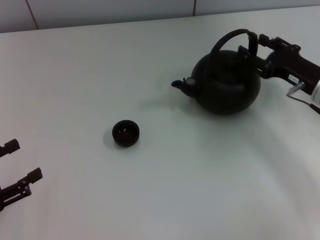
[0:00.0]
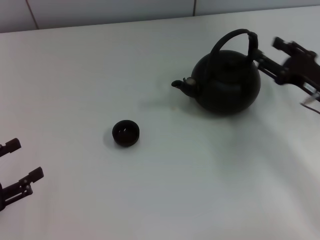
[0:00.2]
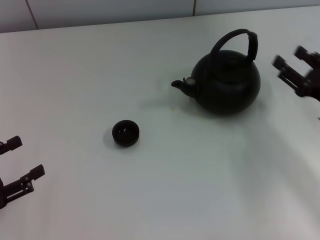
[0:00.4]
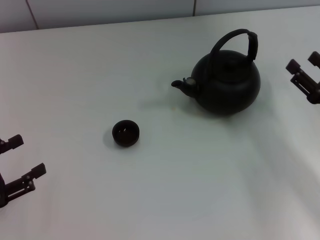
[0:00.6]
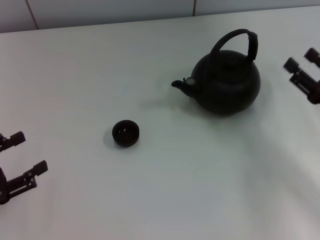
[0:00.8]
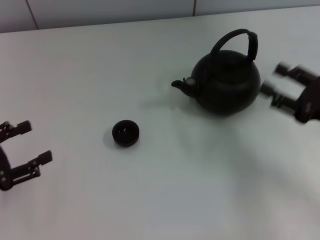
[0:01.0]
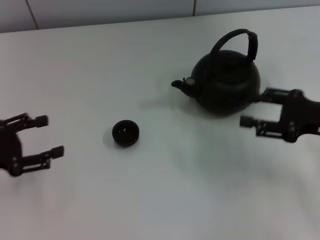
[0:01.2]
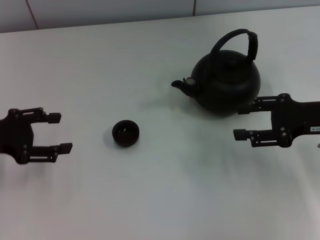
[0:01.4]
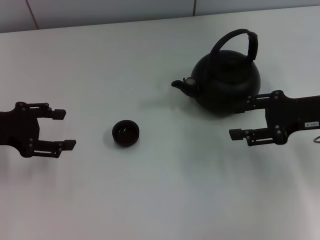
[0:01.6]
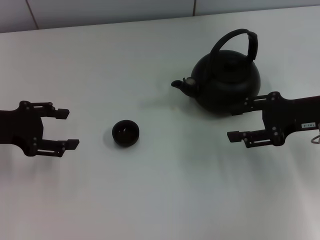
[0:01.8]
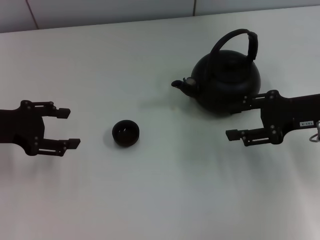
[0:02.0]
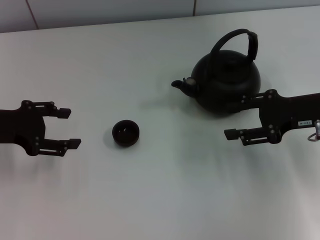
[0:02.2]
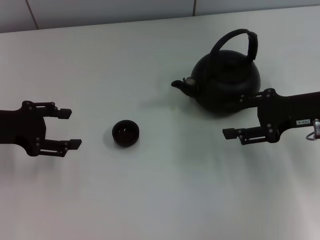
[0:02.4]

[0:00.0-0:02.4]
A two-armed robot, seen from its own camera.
Task of the whole recording: Grasp the handle of the teapot with one hand and pour tea into the teacup.
0.0 to 1.2 s: The left gripper travels forward by roughly 10 cm; the right gripper moves backward, about 5 cm.
1.2 to 2.4 s: The left gripper goes about 5 cm forward.

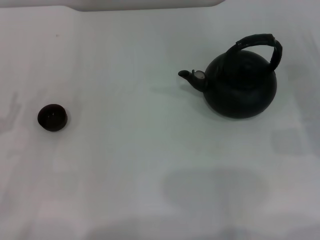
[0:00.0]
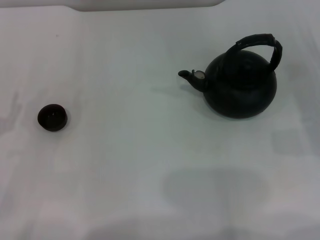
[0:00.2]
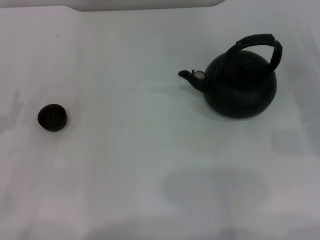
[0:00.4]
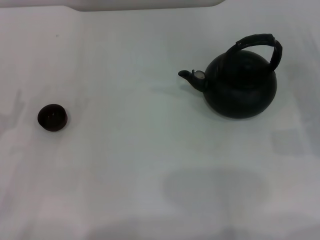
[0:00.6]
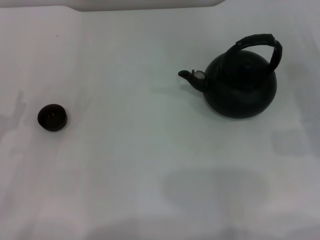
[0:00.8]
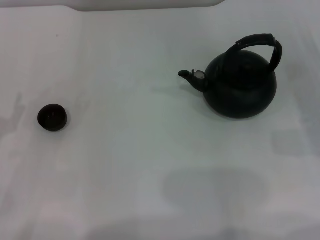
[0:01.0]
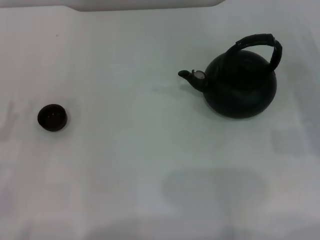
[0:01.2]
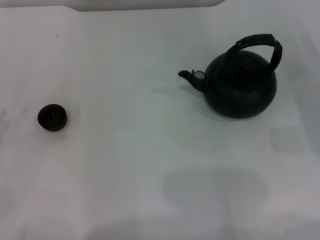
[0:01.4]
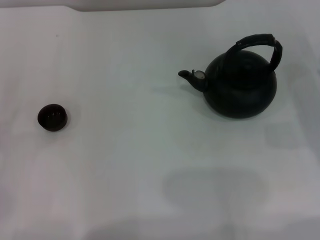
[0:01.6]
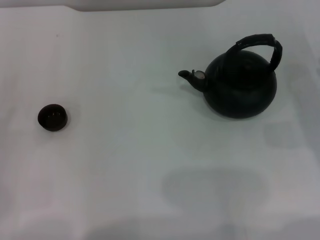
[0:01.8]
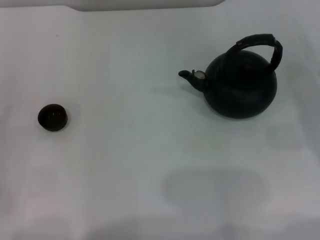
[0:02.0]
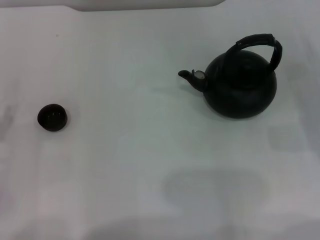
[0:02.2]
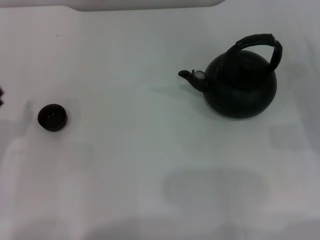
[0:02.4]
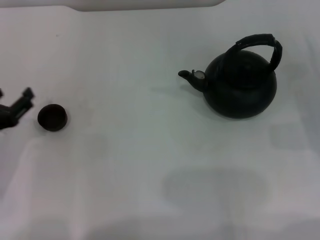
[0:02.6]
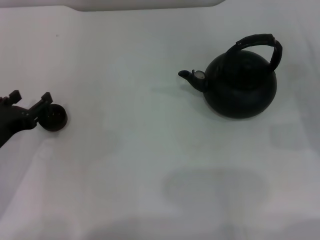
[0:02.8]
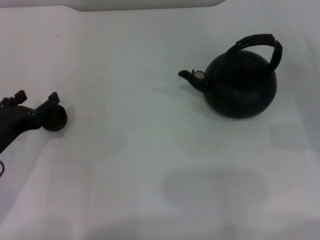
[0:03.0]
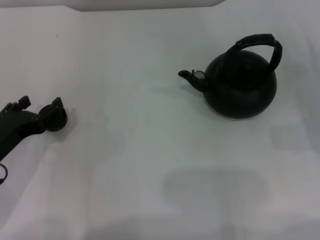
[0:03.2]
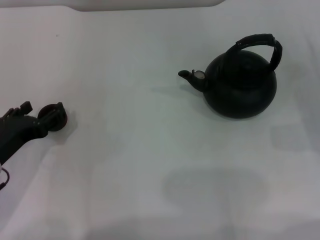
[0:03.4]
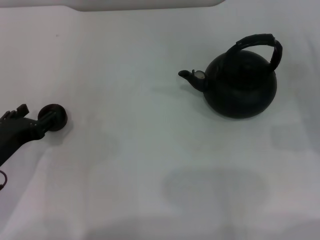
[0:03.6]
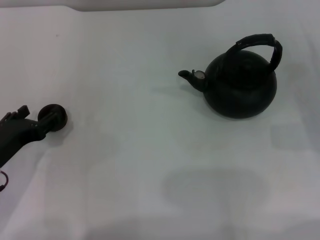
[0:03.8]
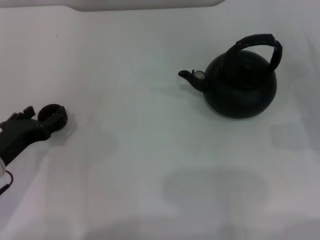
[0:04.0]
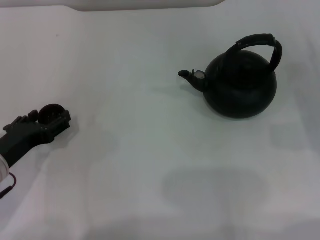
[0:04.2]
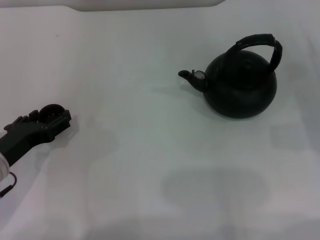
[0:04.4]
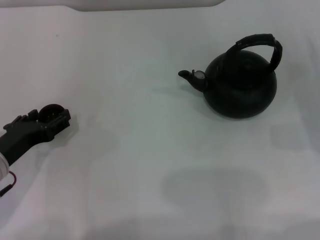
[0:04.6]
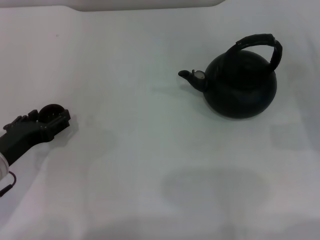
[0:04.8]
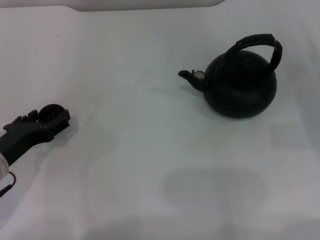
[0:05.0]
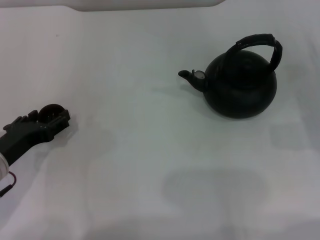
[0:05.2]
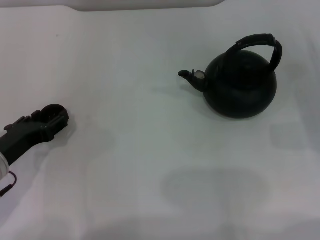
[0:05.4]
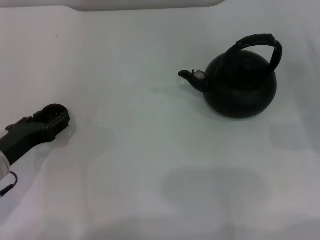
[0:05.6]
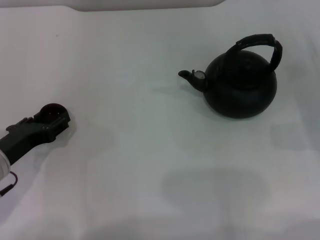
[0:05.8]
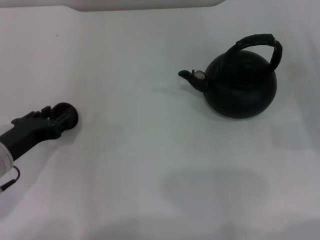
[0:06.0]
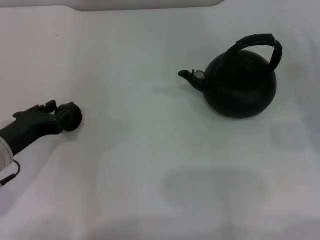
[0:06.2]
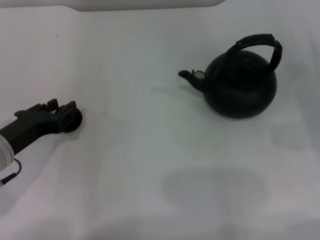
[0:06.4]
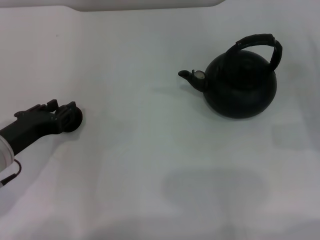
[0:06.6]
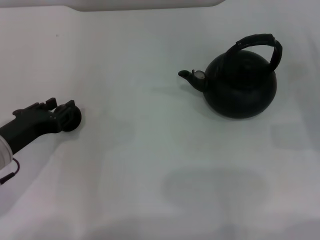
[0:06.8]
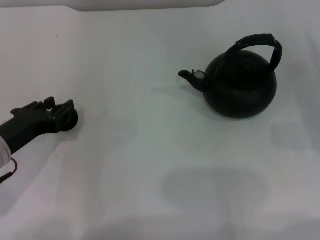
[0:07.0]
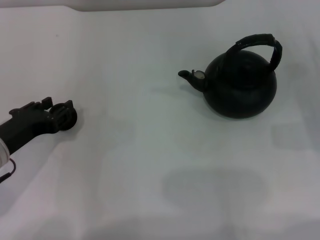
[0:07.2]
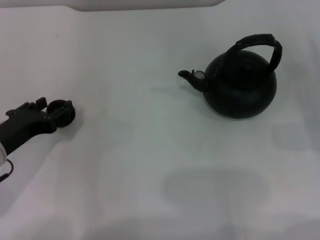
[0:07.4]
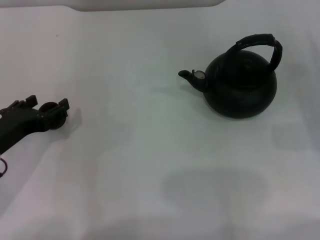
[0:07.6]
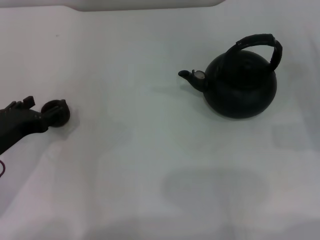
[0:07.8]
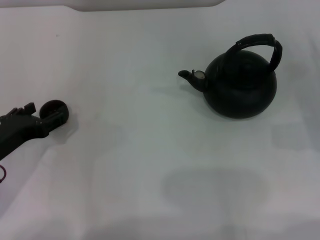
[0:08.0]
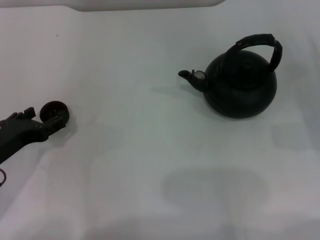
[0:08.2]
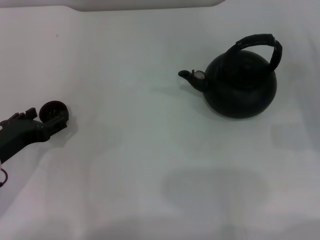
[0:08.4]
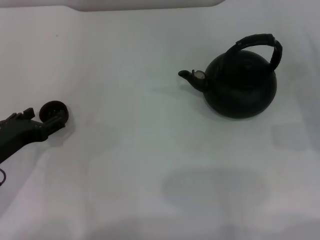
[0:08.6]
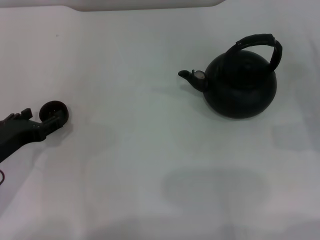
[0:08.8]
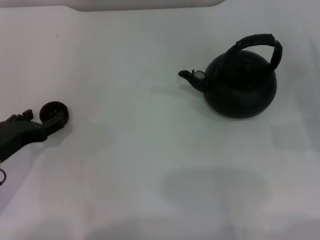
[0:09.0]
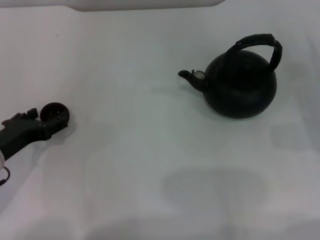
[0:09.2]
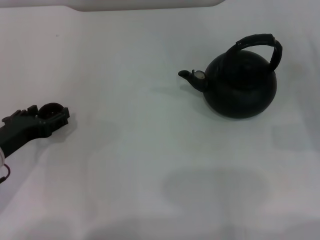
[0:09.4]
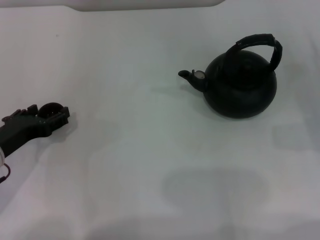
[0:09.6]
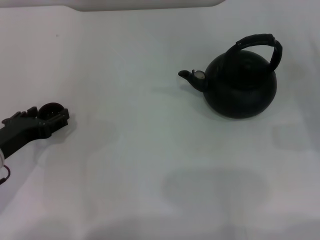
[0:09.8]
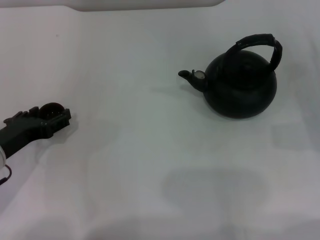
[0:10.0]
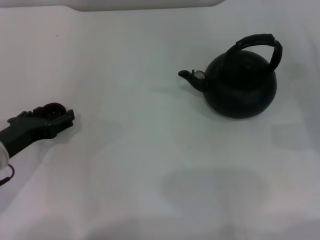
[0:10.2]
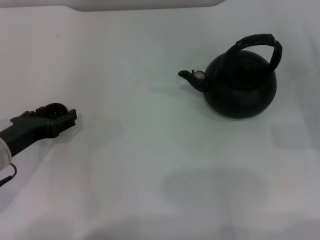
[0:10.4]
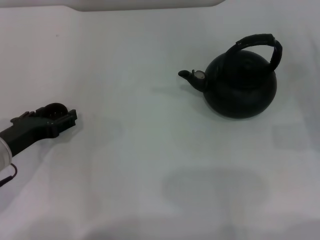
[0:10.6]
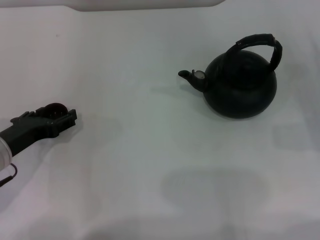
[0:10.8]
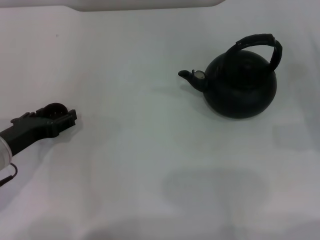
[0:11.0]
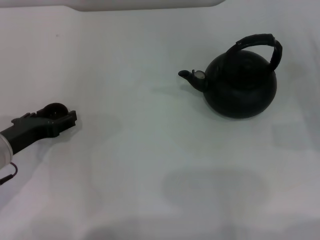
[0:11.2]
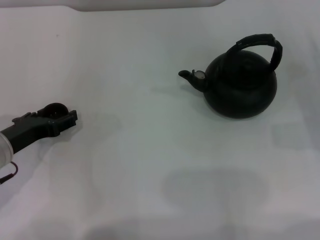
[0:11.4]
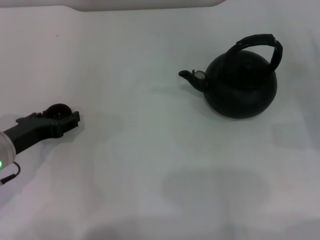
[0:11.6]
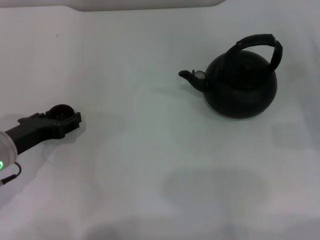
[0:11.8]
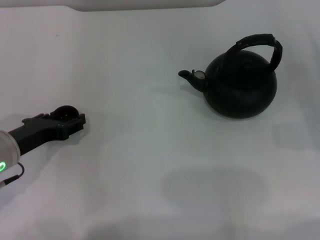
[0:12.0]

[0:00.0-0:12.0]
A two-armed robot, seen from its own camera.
Task of the whole recording: Grasp the handle of the teapot with one hand and pour tea into the teacup.
1.6 to 3.0 s: The left gripper travels to the right and forward by some 10 cm.
3.0 to 4.4 s: There are only small adjustments of the grippers.
4.4 to 6.0 s: The left gripper closes up.
6.0 to 7.6 s: The left gripper closes and opens again.
7.6 to 9.0 s: The left gripper opens up.
9.0 to 10.4 s: There are only small adjustments of the grippers.
10.4 to 12.0 s: The left gripper closes.

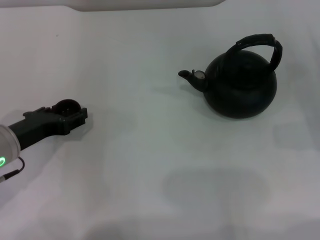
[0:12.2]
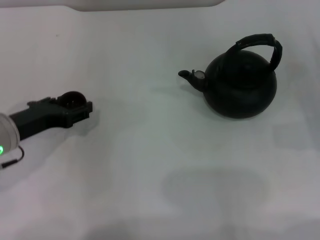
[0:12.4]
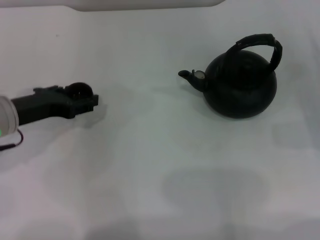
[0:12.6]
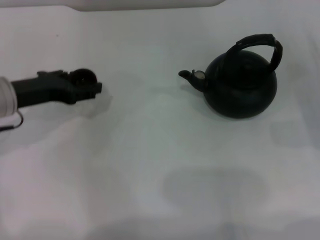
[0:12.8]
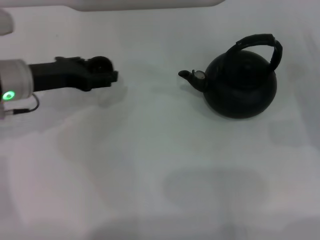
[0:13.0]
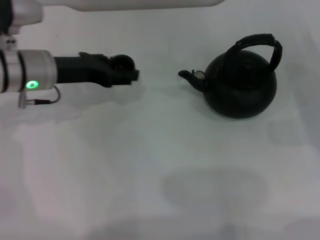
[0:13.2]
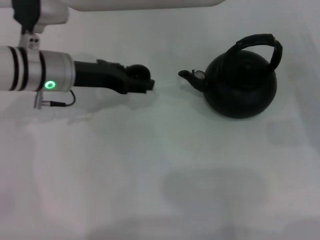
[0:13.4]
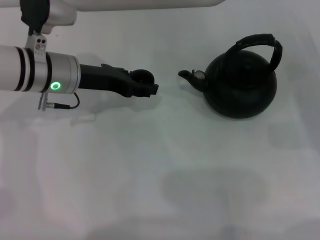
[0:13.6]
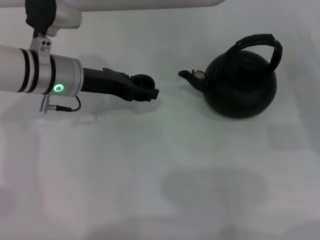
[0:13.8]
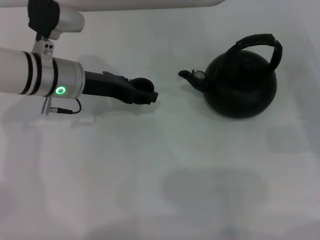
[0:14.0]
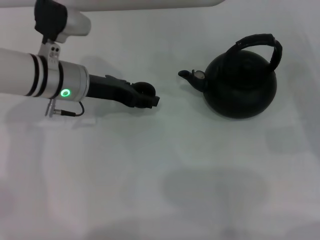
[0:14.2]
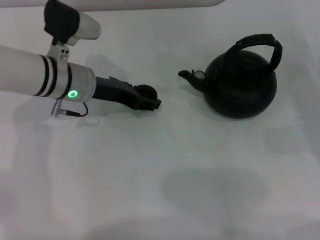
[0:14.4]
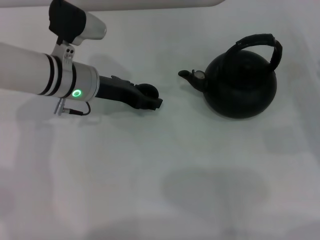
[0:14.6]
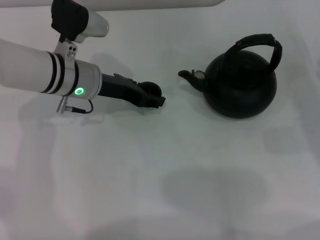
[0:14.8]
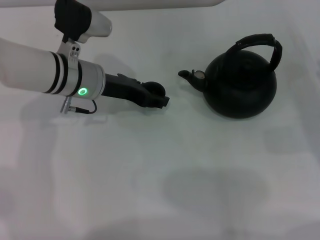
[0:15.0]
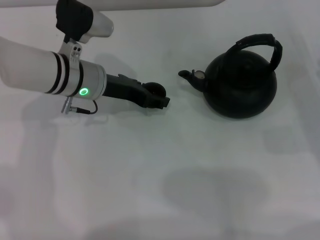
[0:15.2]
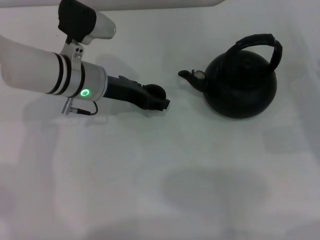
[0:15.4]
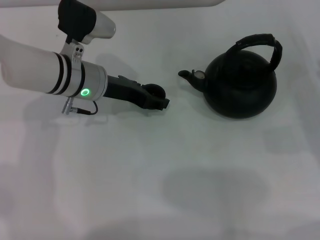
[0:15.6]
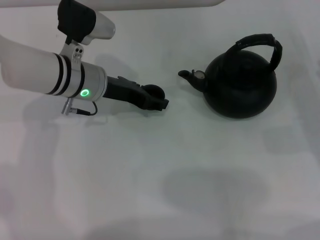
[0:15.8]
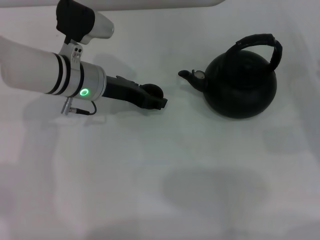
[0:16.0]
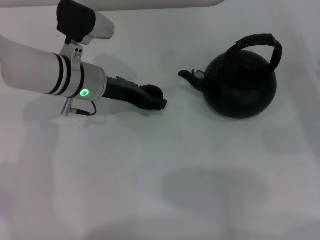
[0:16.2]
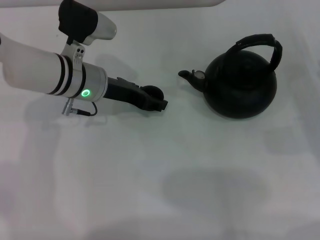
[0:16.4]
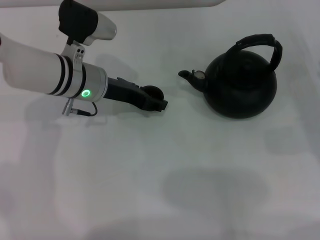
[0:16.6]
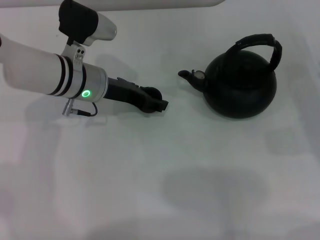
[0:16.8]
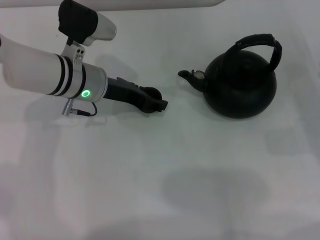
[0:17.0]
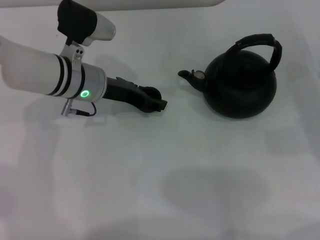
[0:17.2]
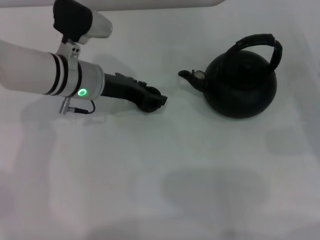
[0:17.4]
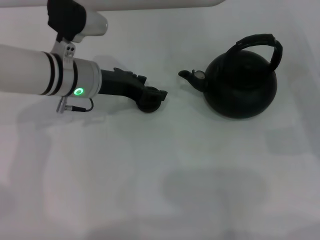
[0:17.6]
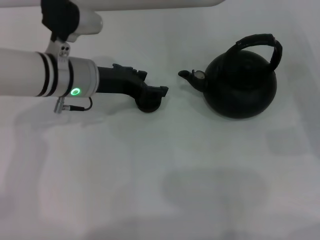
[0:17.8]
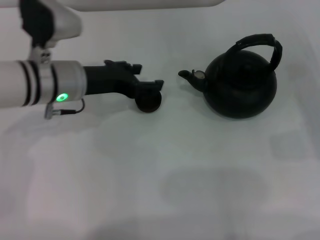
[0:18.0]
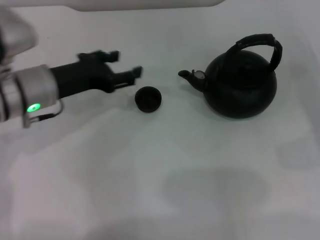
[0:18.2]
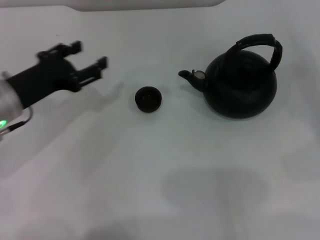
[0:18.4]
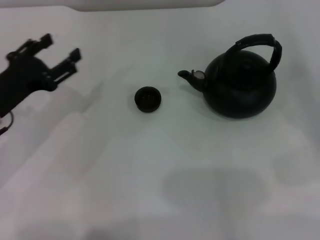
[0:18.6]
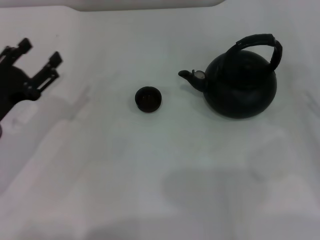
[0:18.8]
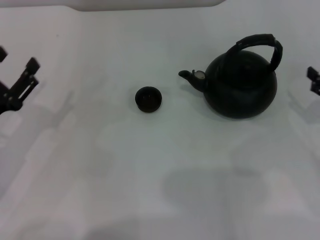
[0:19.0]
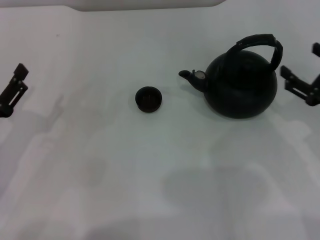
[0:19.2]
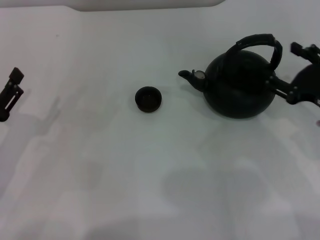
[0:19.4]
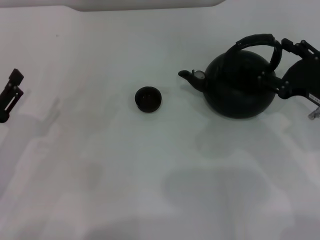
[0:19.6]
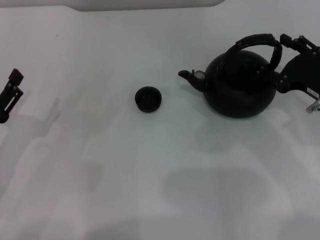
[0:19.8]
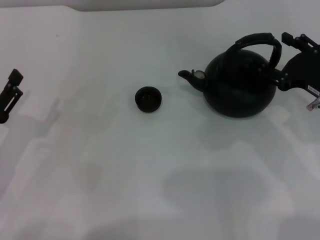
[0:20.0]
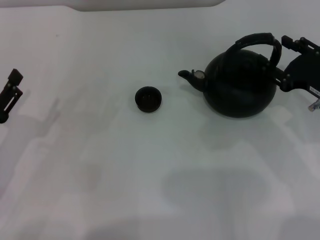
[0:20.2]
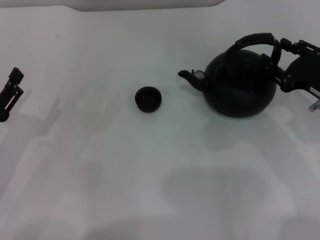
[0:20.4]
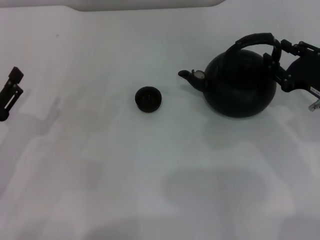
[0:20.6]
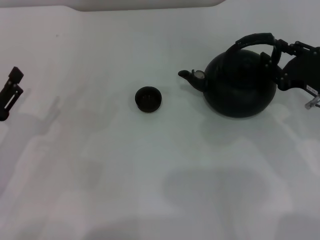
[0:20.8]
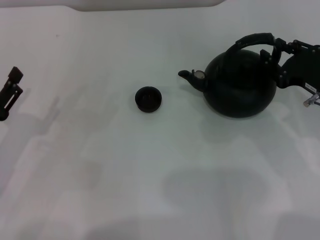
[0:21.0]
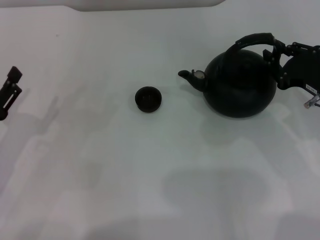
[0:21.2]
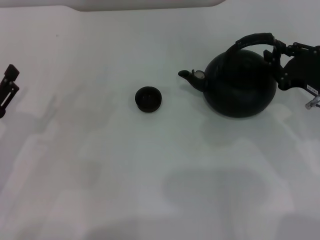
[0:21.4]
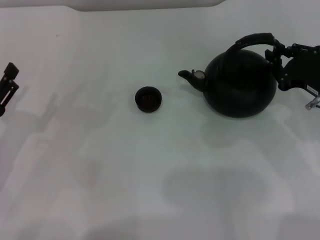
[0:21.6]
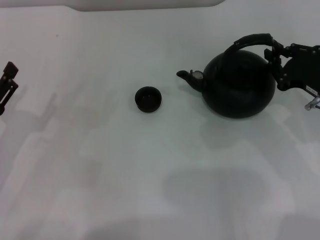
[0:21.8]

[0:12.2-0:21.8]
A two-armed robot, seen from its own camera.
Task of the whole recording: Grasp the handle of the teapot with one hand and pour tea into the teacup.
Step, 12.4 to 18.0 s: Place the teacup in the center of view with the left gripper.
12.2 to 13.8 s: The left gripper shifts approximately 15 cm forward and to the right.
13.8 to 15.4 s: There are only small adjustments of the grippers.
15.4 to 17.0 s: The two grippers keep their place.
17.0 to 18.6 s: The left gripper heads to the left and backward, covering about 15 cm. Meanwhile the right gripper shifts some 5 cm backward.
18.6 to 20.2 s: The left gripper goes approximately 5 cm backward. The right gripper heads to the left and forward, covering about 10 cm.
20.2 to 21.8 s: The right gripper closes up.
